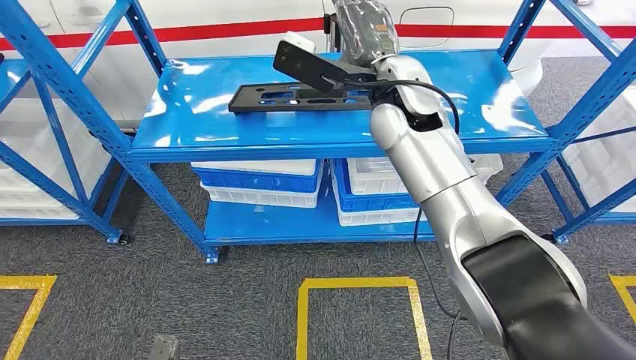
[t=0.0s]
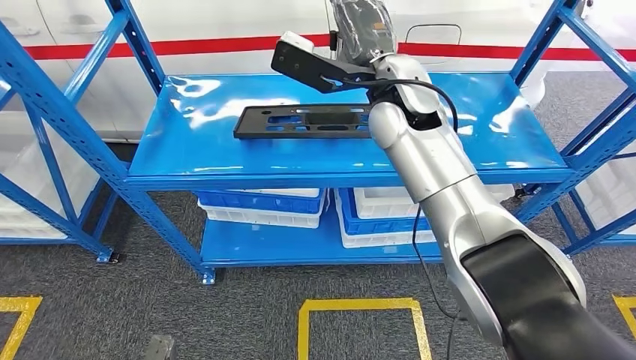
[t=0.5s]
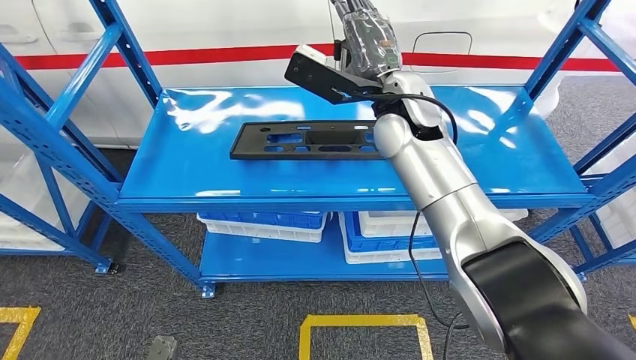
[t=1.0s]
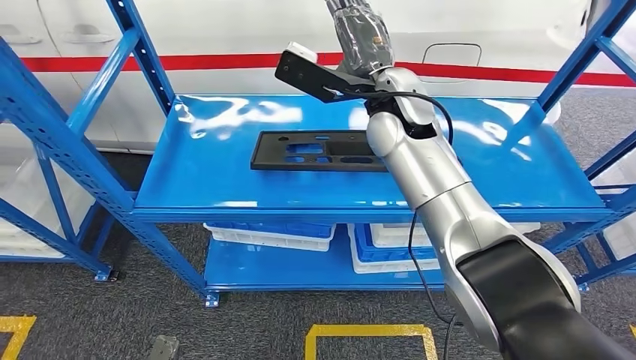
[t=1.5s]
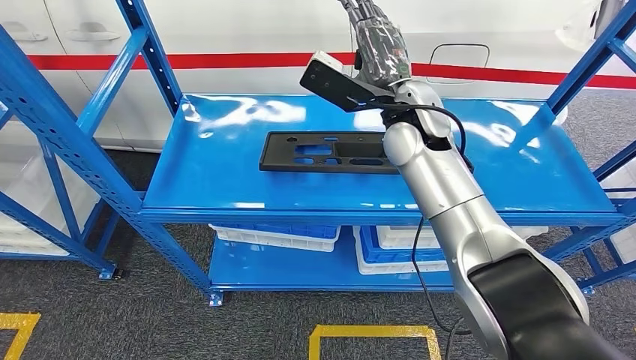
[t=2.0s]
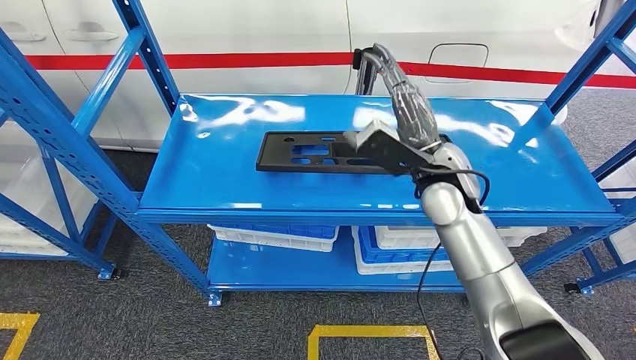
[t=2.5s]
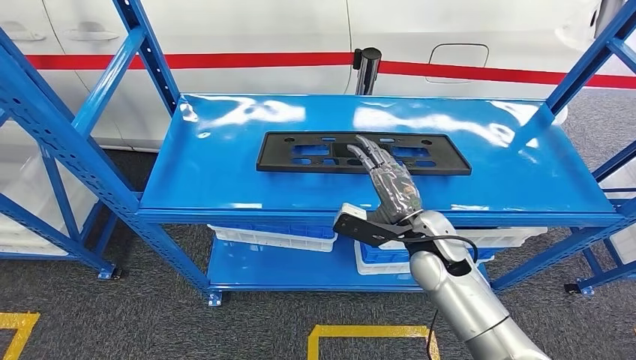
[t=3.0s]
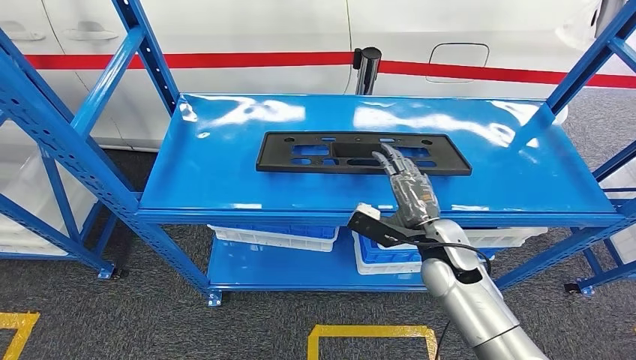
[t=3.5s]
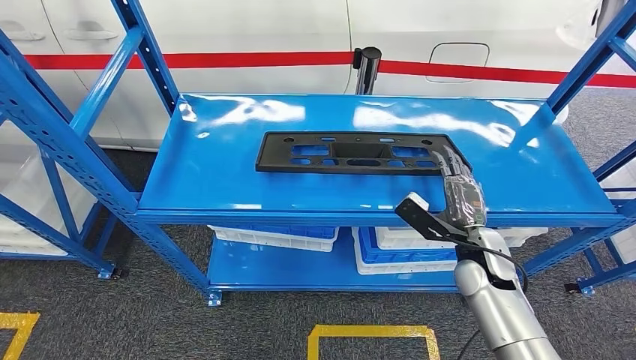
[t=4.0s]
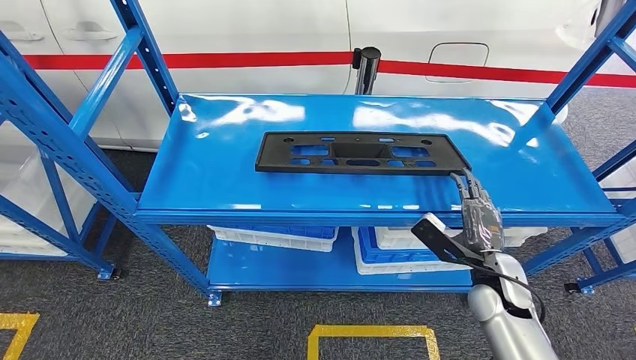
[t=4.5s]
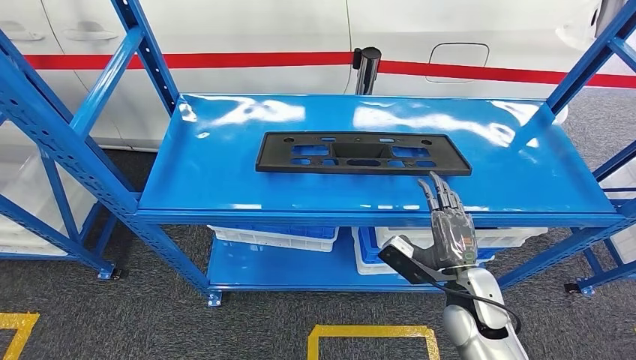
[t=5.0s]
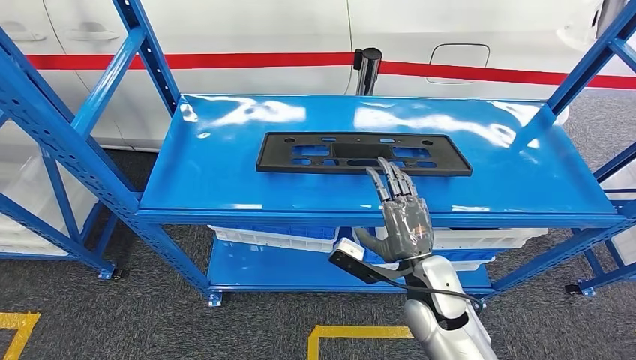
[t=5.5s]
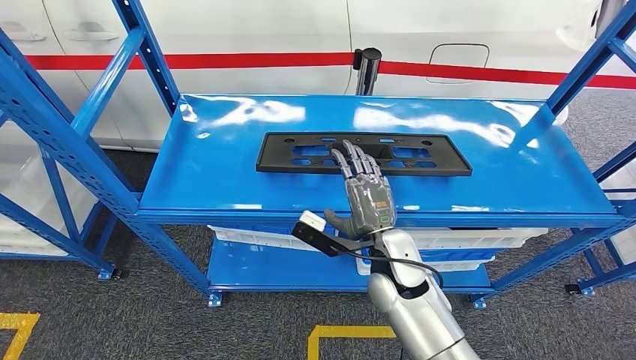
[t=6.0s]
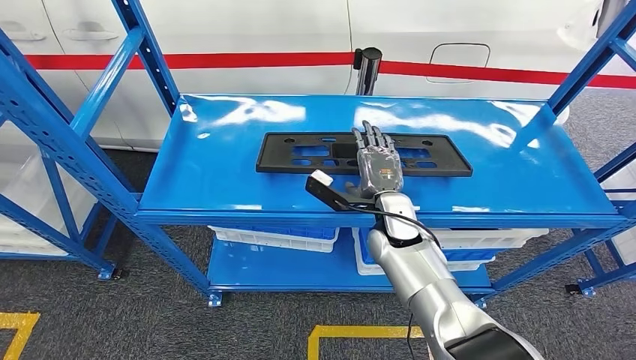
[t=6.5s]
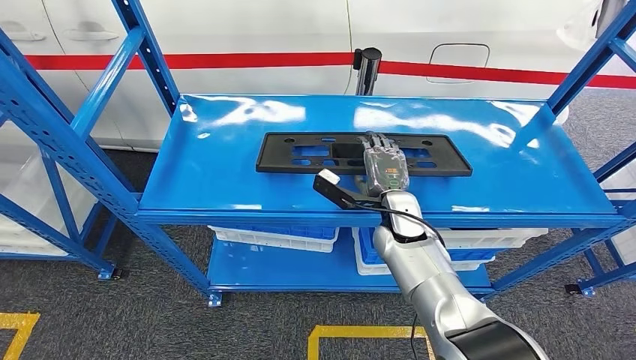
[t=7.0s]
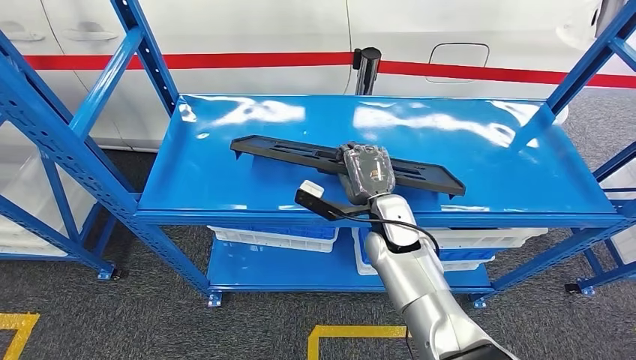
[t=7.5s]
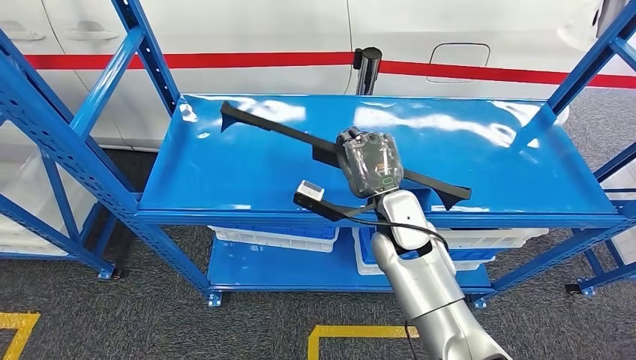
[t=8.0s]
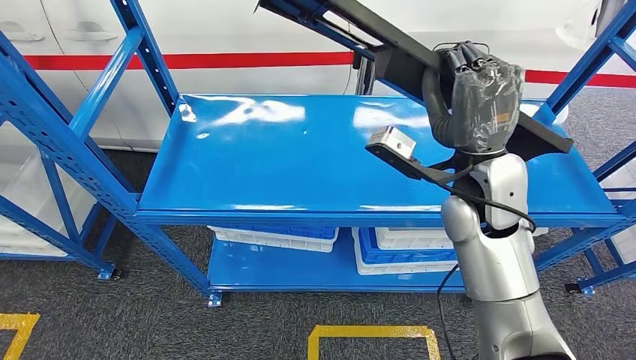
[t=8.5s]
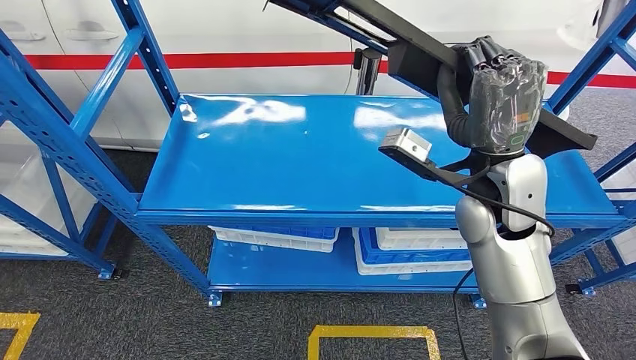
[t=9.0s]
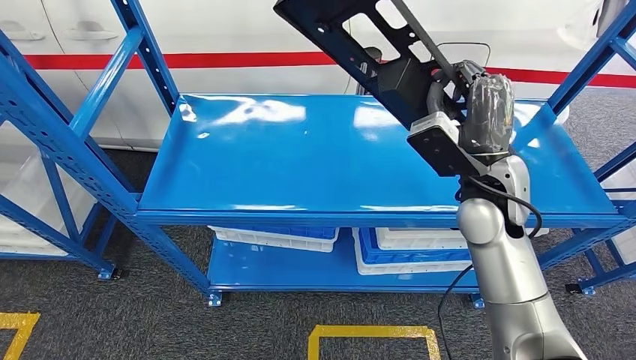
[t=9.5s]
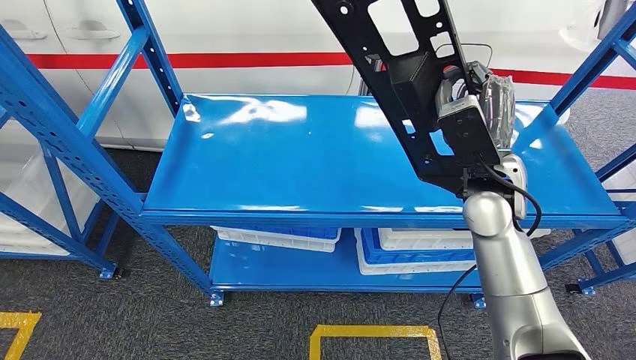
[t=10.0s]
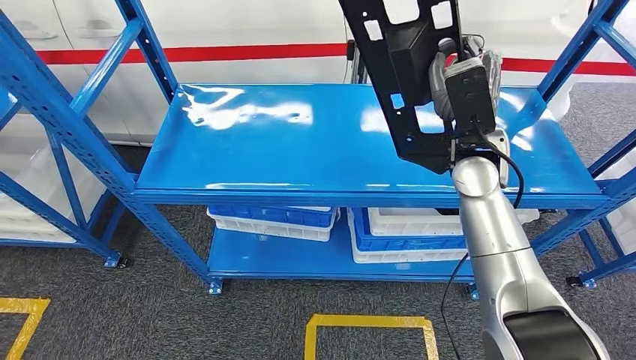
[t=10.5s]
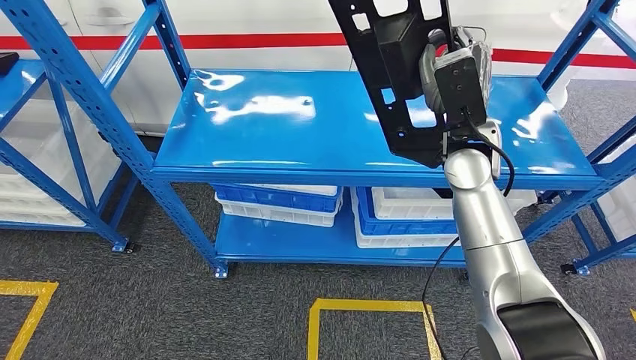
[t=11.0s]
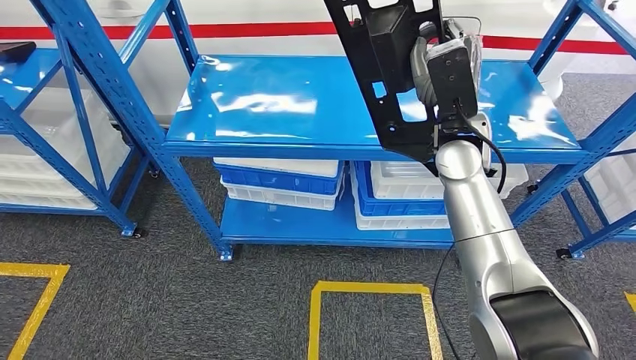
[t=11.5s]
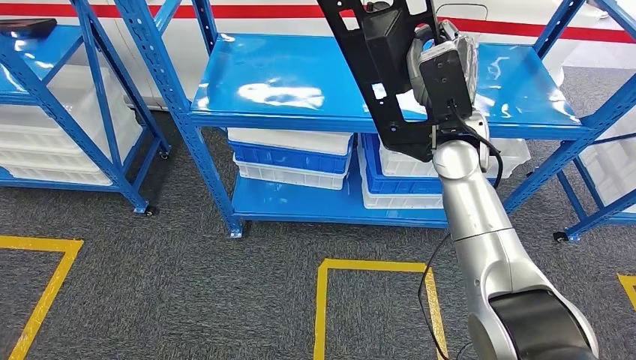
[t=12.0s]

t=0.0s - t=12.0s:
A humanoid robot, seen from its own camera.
Step, t=0.0s - t=10.5s: Pick up the large material from the shelf.
t=2.0s - t=4.0s: The right hand shifts roughly 30 cm downward, to the right and backward.
t=4.0s - t=6.0s: The right hand shifts some 15 cm to the left.
t=6.0s - t=8.0s: The right hand moves roughly 5 cm.

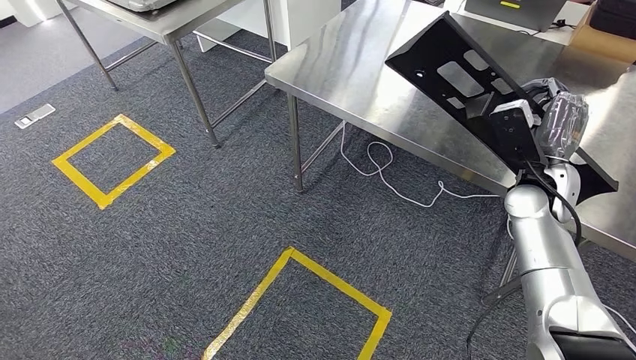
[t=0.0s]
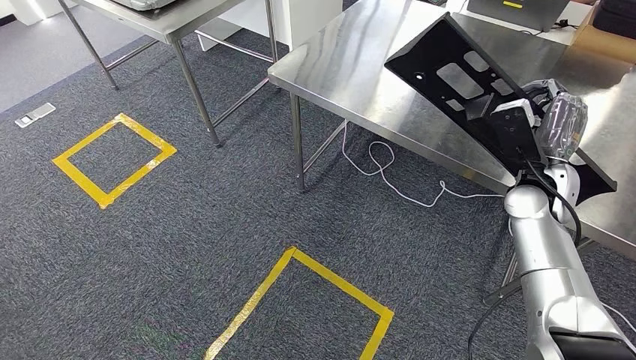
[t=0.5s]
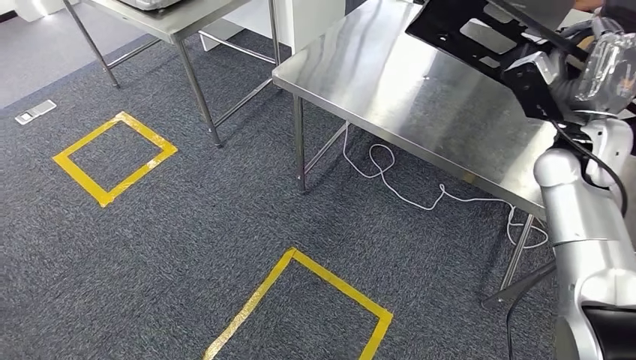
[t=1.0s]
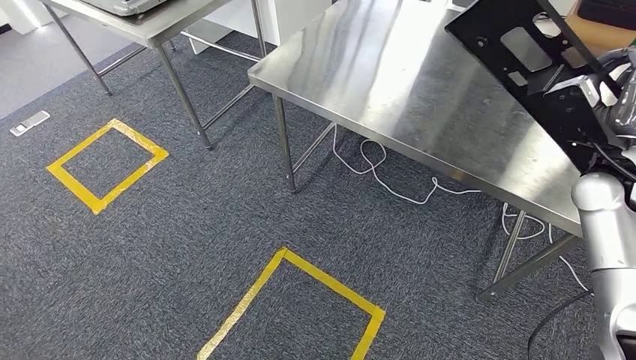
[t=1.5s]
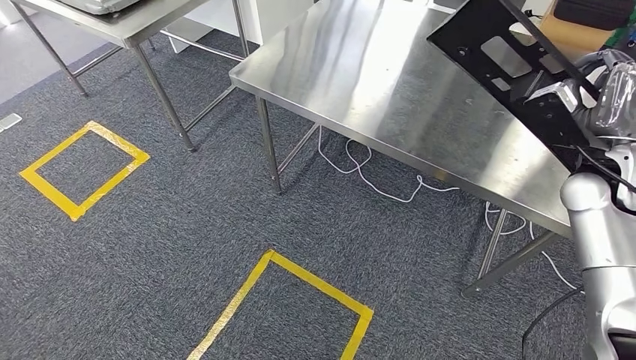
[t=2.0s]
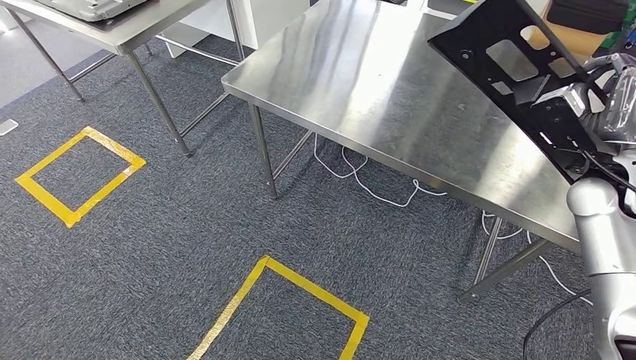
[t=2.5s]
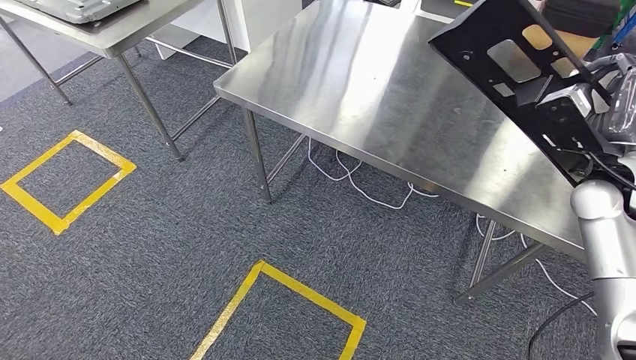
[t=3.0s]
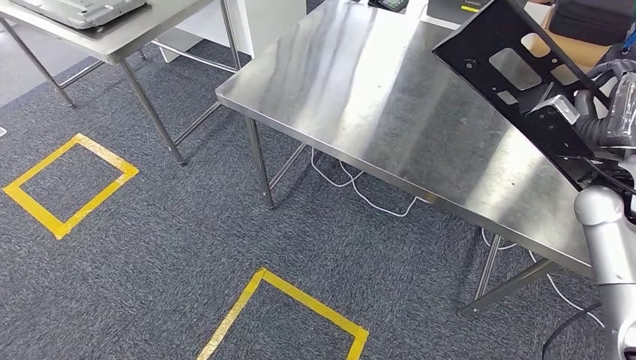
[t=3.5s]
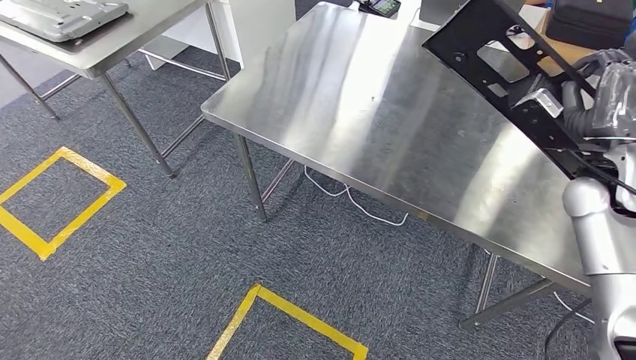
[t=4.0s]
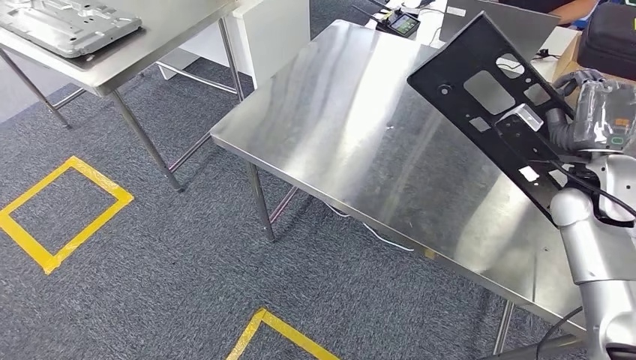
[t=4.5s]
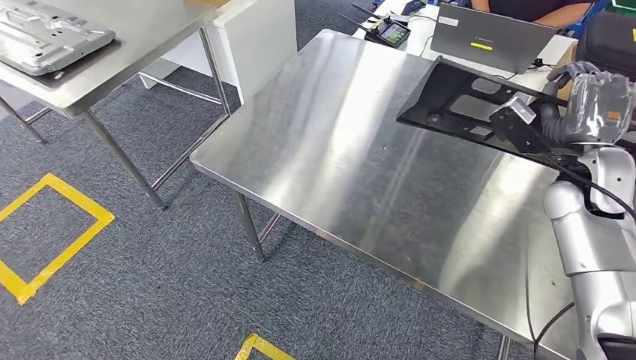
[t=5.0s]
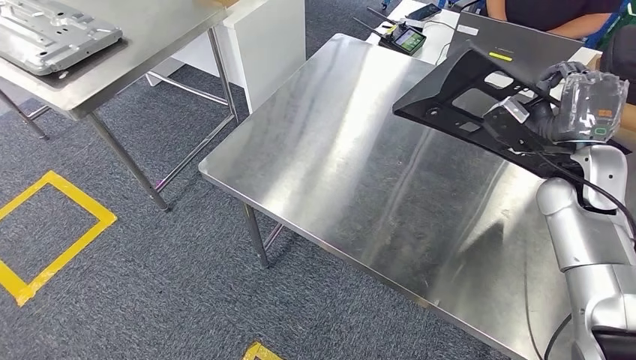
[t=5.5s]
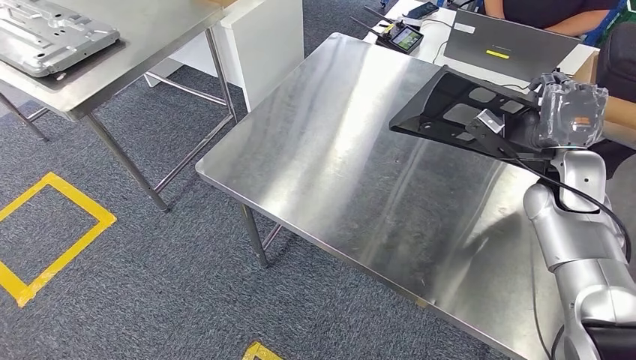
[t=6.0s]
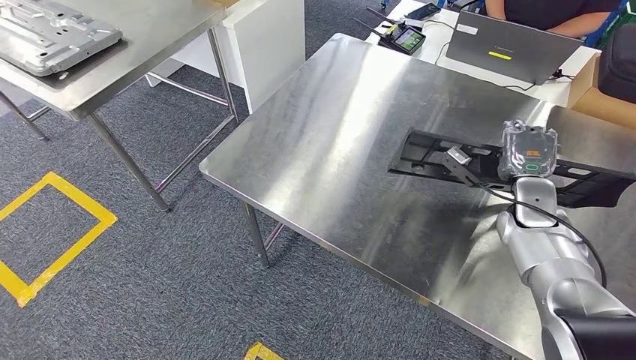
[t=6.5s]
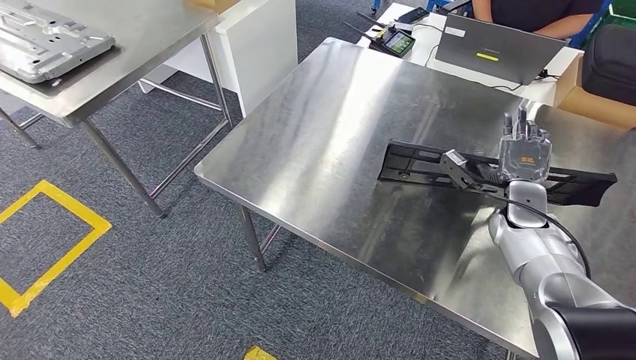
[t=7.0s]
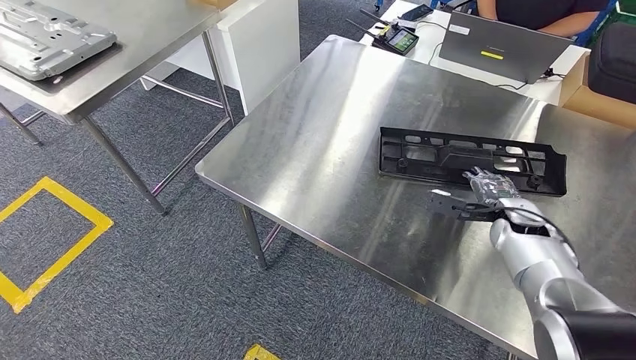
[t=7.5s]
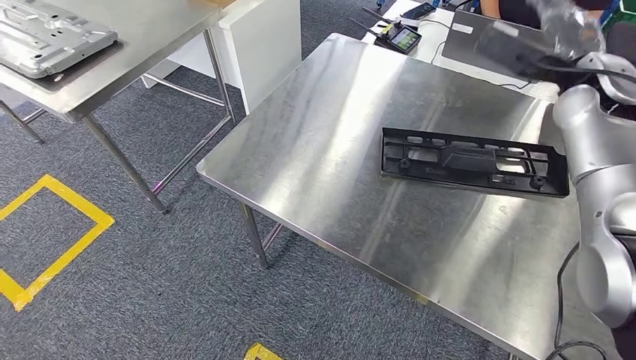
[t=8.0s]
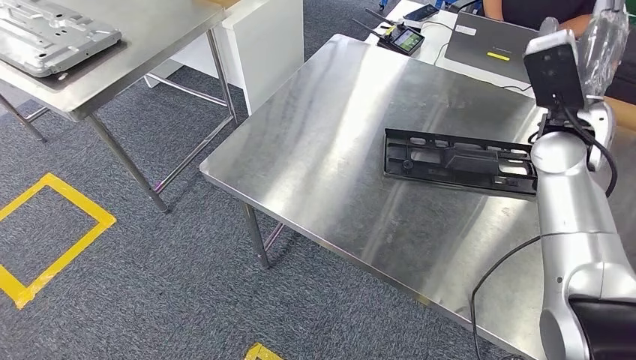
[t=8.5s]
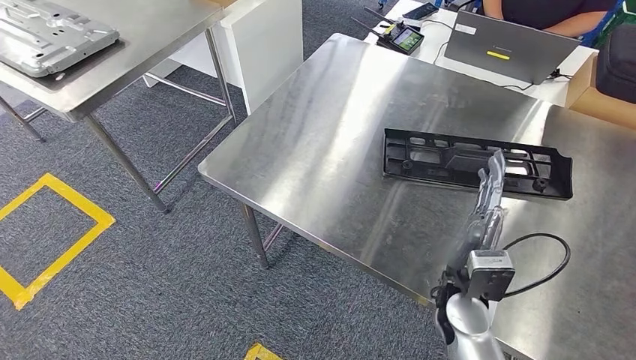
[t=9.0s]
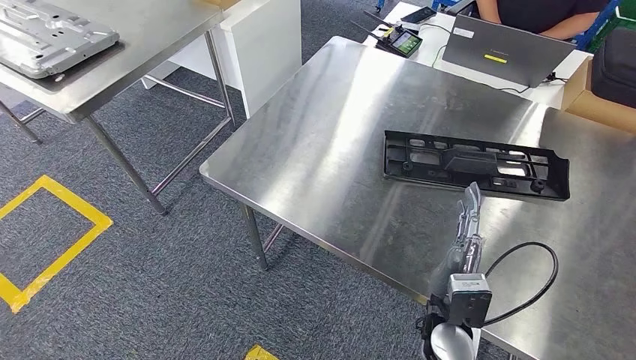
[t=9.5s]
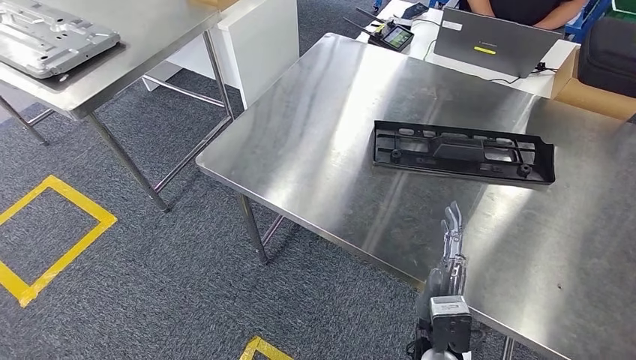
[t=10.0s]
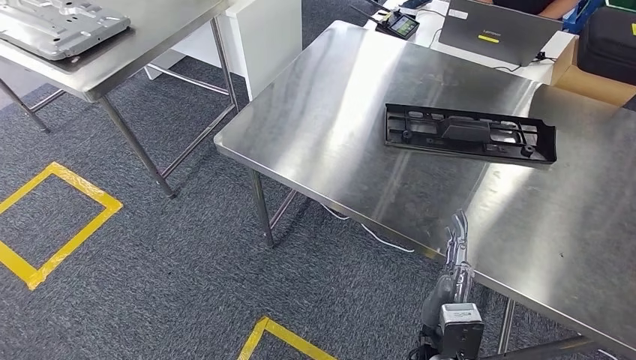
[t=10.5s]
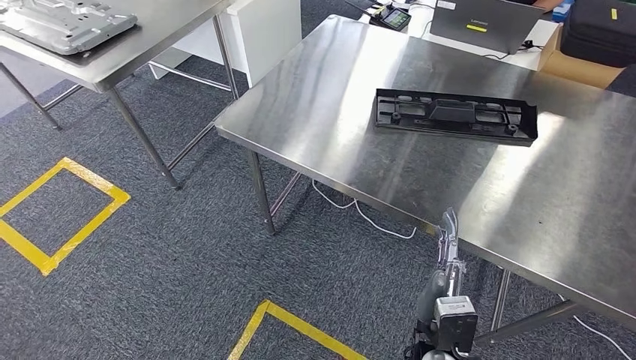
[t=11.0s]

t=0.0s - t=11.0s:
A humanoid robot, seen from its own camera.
Step, t=0.0s - t=2.0s: Move the large material to the front of the workbench.
